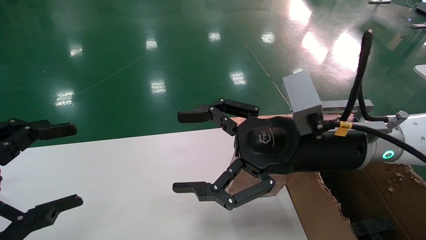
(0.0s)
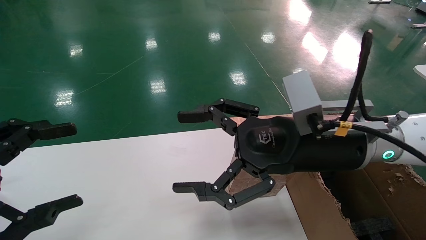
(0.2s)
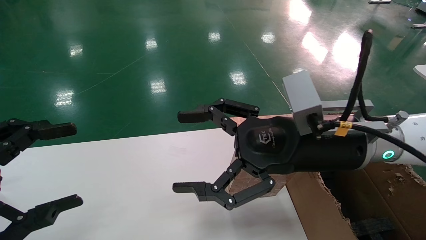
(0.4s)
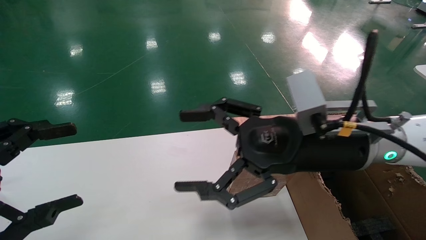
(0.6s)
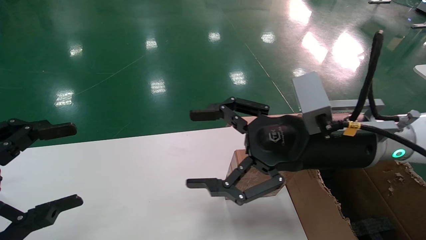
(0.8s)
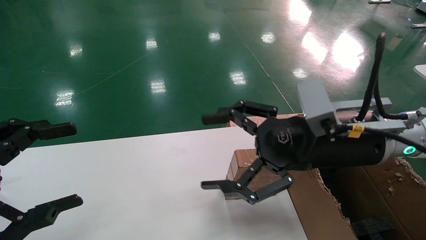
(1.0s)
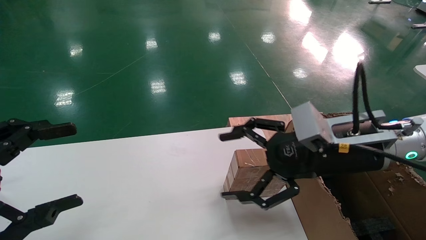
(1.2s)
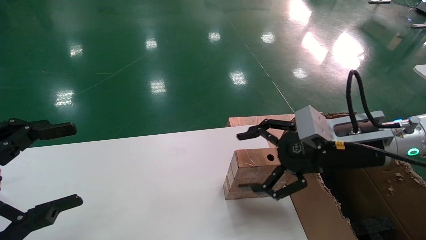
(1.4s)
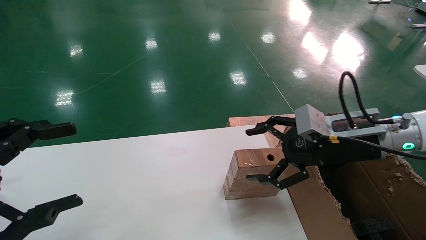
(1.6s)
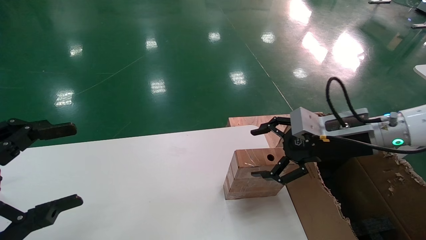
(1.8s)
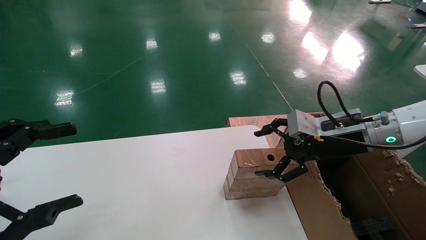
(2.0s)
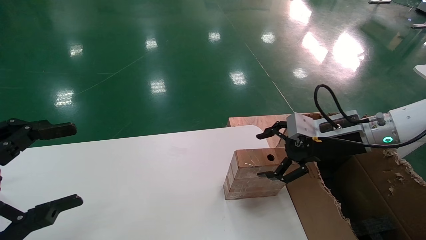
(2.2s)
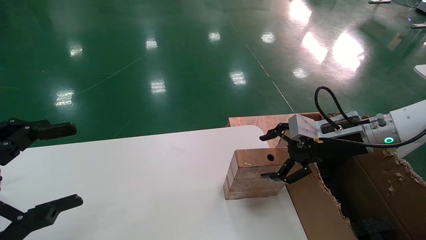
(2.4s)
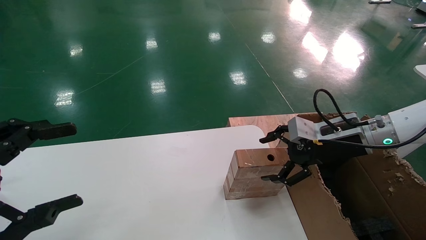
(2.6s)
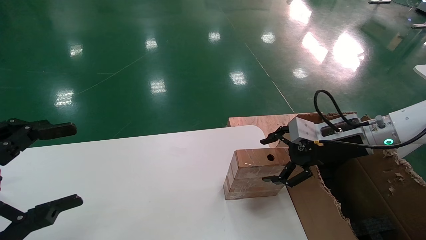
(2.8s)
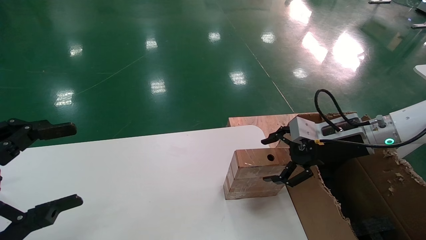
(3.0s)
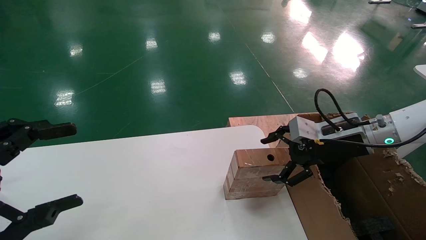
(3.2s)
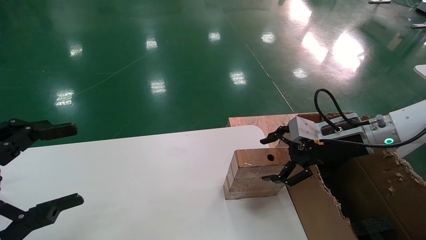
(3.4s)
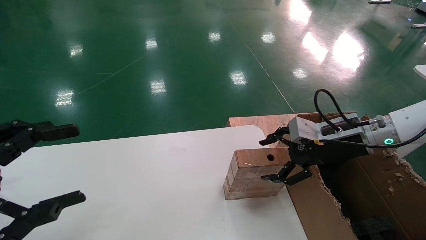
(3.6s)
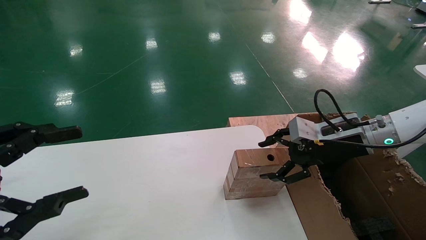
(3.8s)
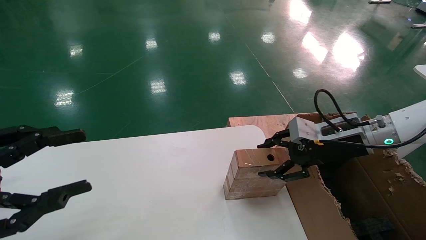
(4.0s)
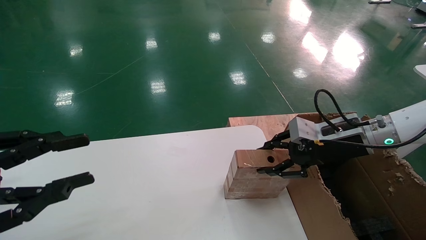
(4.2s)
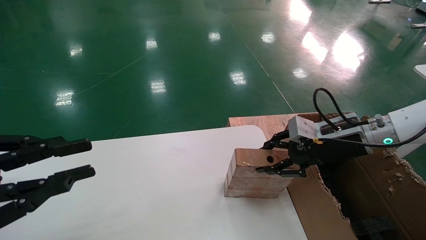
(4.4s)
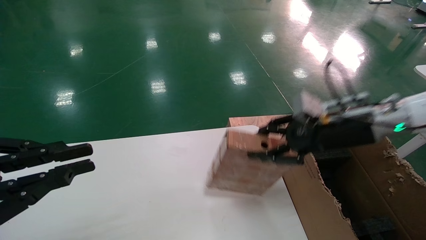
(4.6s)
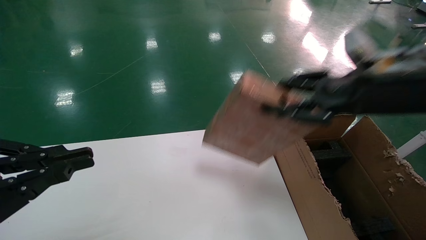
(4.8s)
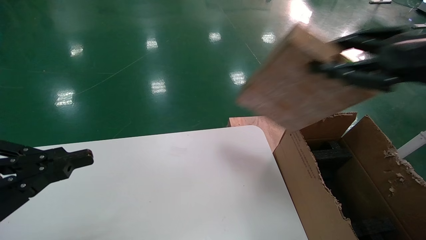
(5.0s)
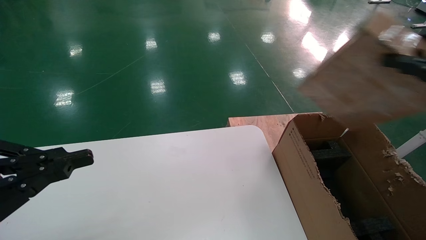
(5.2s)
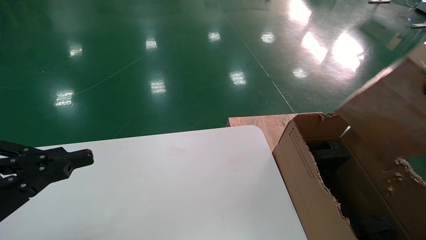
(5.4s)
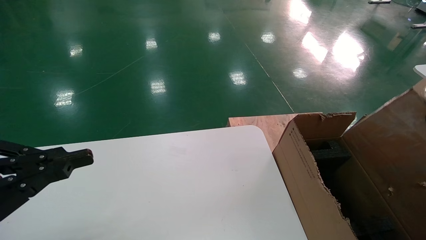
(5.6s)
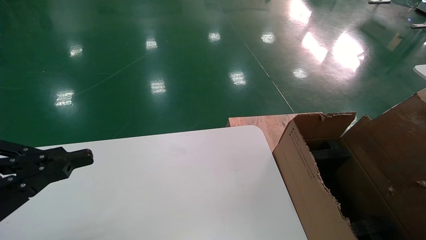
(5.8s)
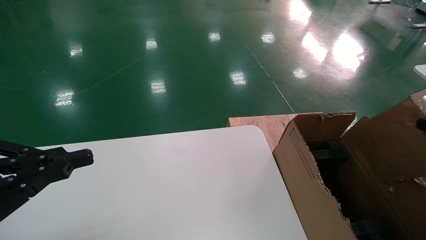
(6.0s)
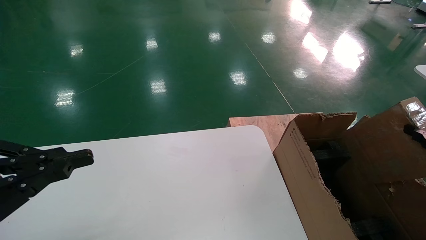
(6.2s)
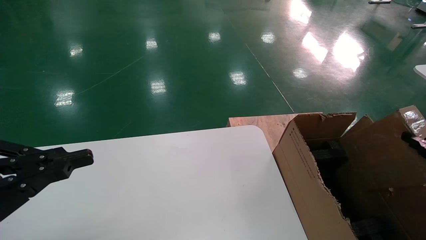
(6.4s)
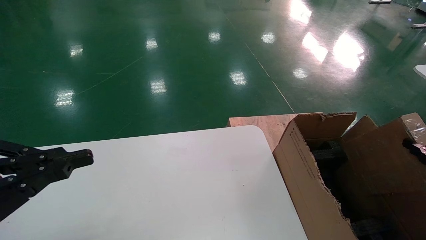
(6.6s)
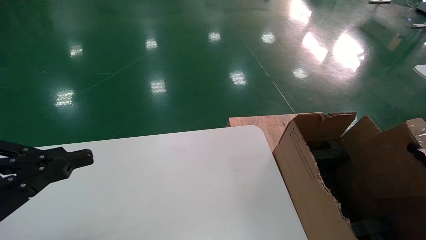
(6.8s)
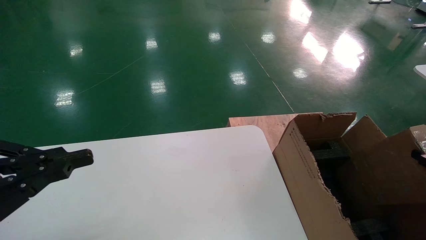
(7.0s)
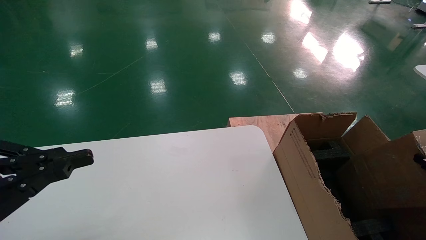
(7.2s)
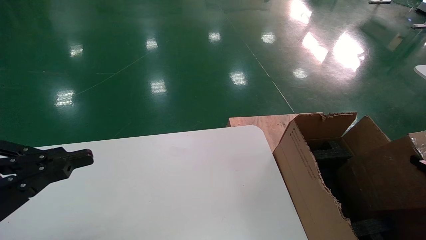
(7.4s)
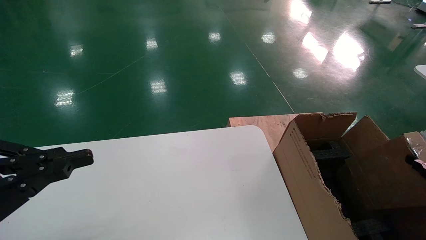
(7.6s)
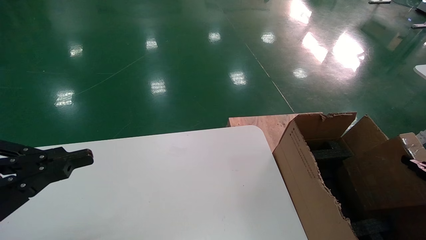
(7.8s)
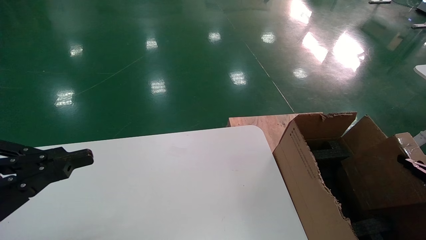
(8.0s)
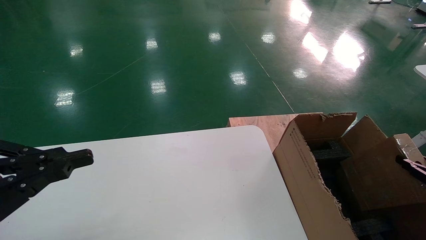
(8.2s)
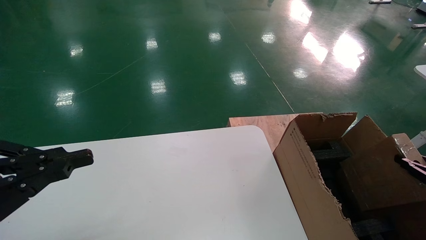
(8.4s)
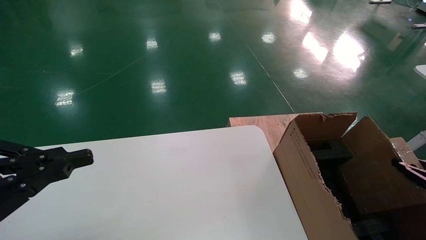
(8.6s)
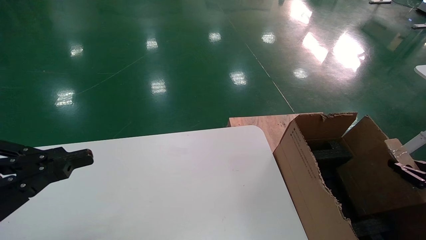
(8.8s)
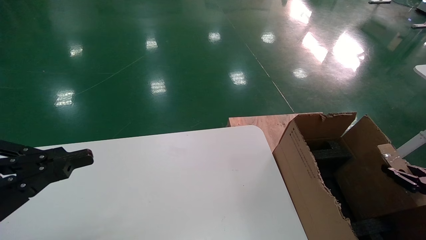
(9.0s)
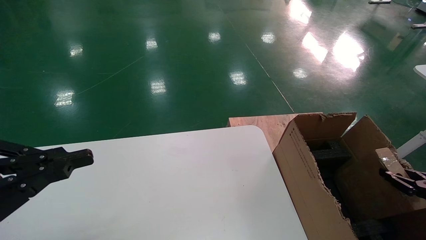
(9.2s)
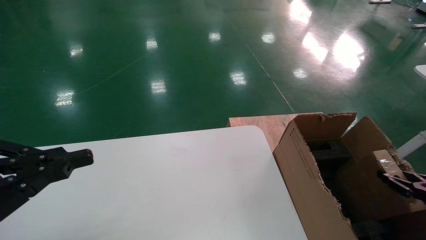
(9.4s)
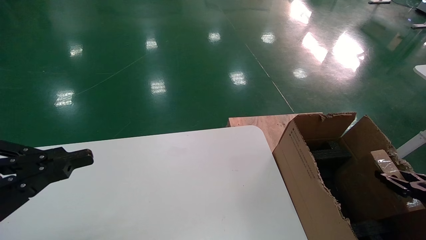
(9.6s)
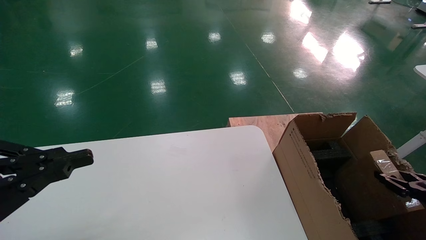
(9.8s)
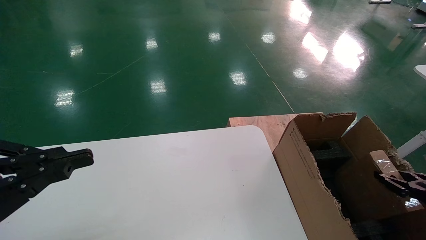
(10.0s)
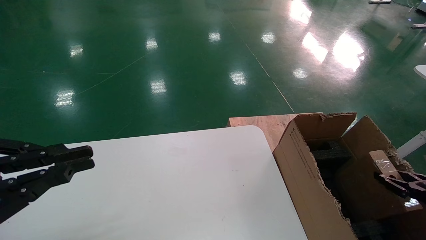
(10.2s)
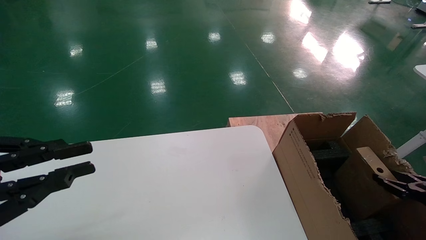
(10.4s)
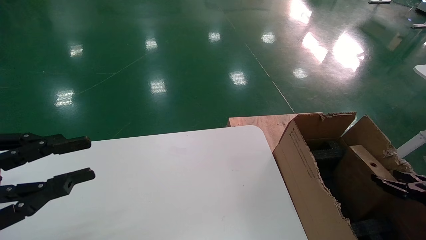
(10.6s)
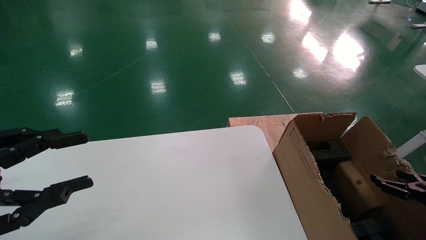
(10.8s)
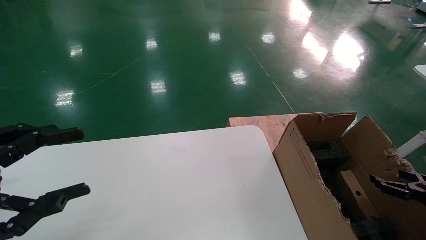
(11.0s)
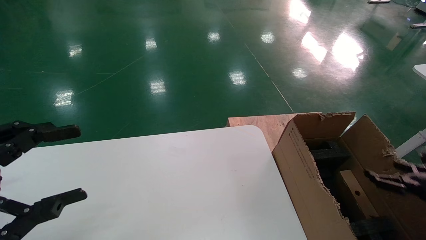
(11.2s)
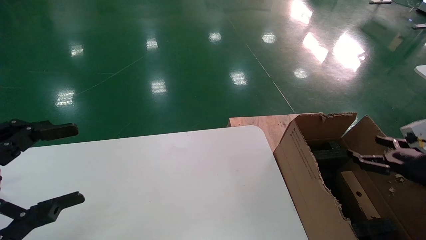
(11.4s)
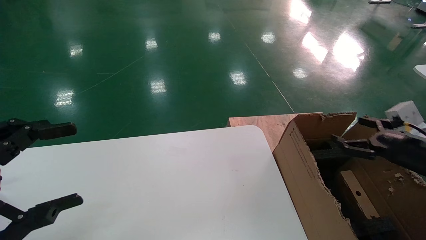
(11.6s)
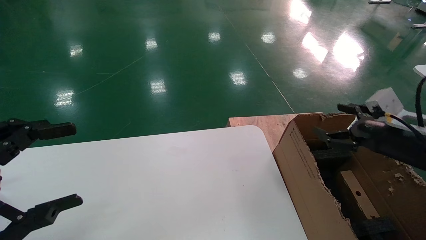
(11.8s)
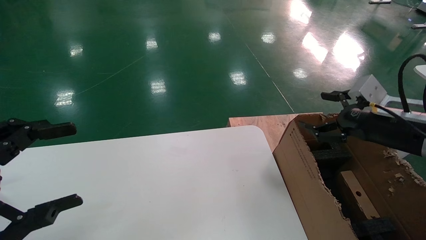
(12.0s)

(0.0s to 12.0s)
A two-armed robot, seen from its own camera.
Task of the whole recording: put the box on the table into the big box.
Step, 1.2s - 4.2s: Pick up the mouse and the power cord paper box.
Step, 4.4s - 10.8s: Place the mouse and the power cord paper box into the container.
0.0s - 1.6s: The right gripper travels to the right by roughly 10 cm.
1.6s - 3.0s: The right gripper moves some 5 cm.
3.0s - 4.4s: The left gripper closes up, while the right gripper closes up.
4.4s - 6.0s: The right gripper moves backward and to the right, roughly 30 cm. The left gripper closes its fingers.
6.0s - 7.6s: The right gripper is displaced downward by roughly 10 cm.
7.6s - 9.0s: The right gripper ends up about 5 cm from where it was.
9.0s - 10.4s: The grippers make only small movements.
10.4s - 12.0s: The right gripper shifts some 20 cm upward and to the left, and opens up; the left gripper opens.

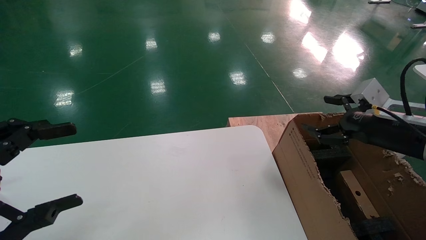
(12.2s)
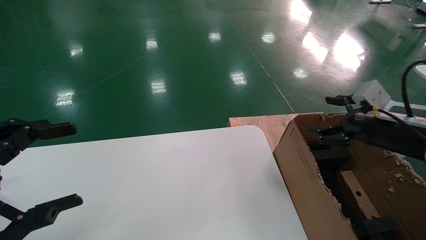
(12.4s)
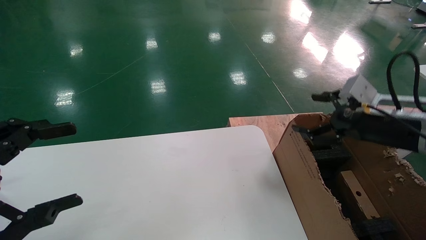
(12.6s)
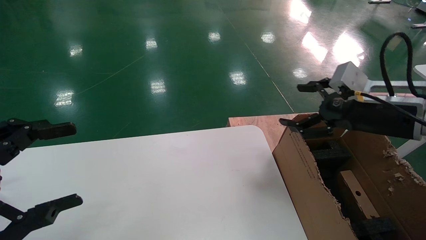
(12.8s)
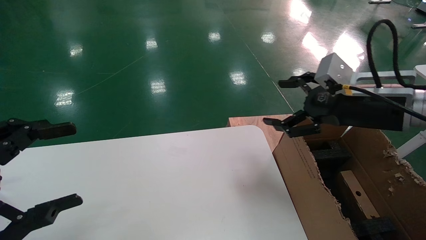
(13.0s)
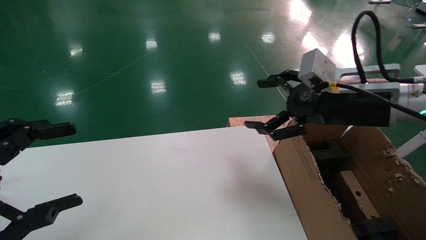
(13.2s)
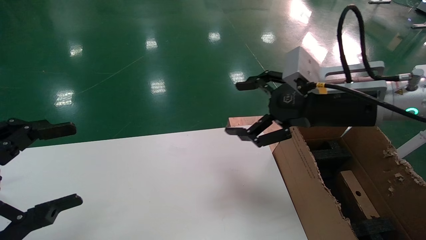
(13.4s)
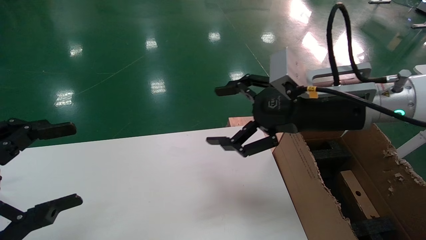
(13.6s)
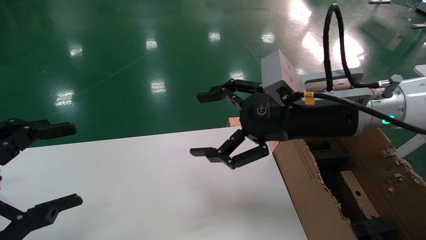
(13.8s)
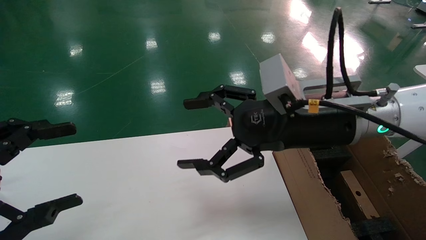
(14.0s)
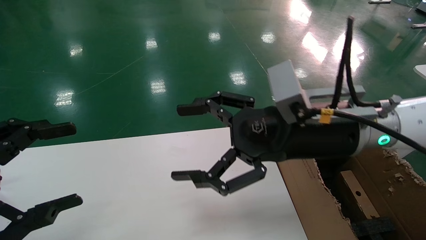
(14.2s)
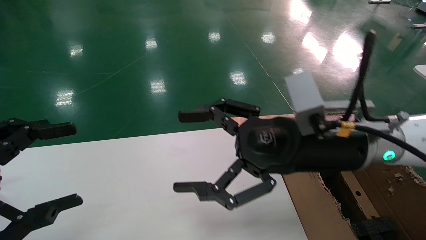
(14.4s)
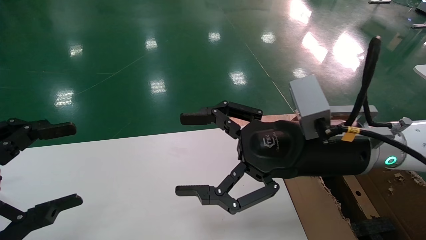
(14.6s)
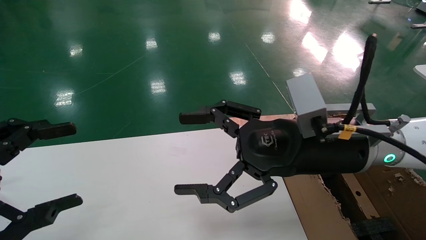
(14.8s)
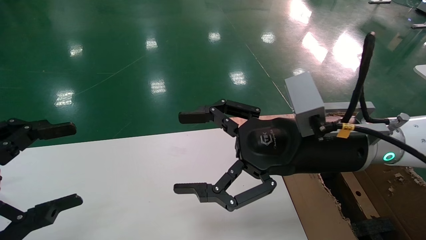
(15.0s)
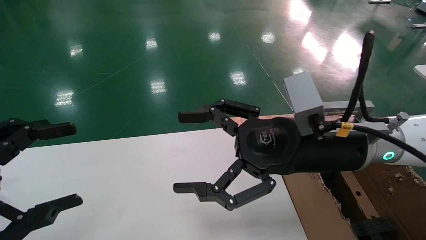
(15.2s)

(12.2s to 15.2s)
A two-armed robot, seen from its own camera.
Task of the whole recording: put the box on the table into the big box.
12.2s - 13.8s: The right gripper moves to the left and upward, some 20 cm.
13.8s - 15.2s: There are only small adjustments of the grippers.
